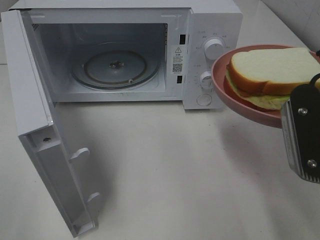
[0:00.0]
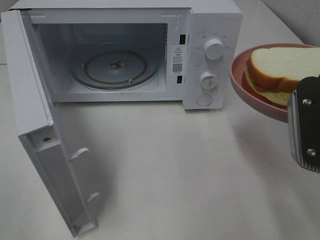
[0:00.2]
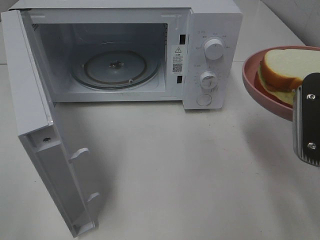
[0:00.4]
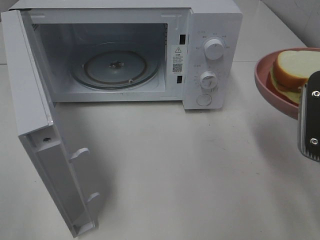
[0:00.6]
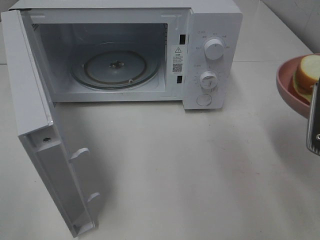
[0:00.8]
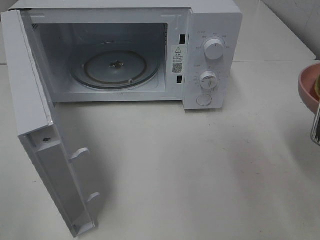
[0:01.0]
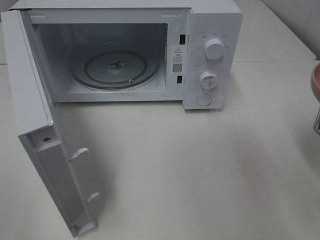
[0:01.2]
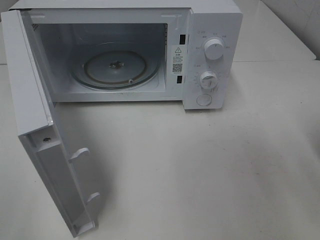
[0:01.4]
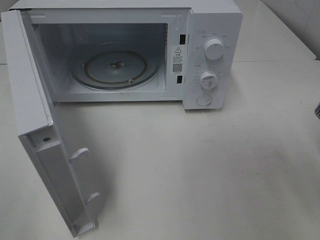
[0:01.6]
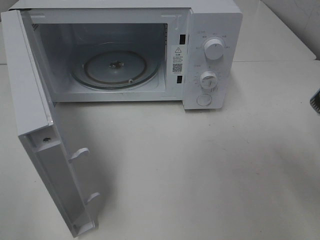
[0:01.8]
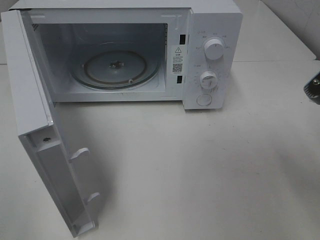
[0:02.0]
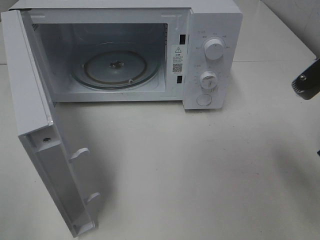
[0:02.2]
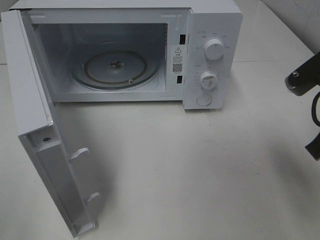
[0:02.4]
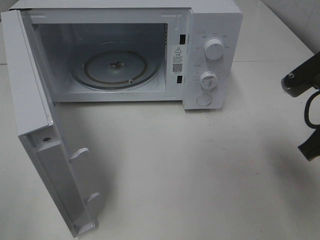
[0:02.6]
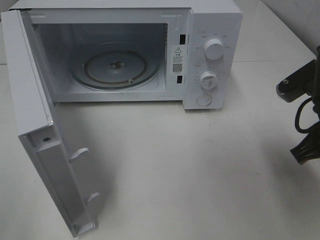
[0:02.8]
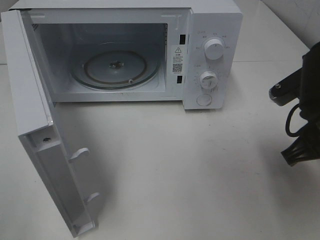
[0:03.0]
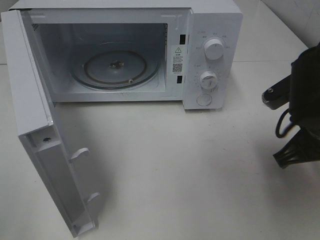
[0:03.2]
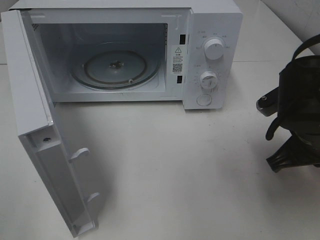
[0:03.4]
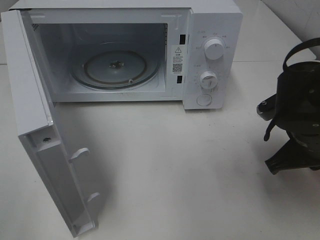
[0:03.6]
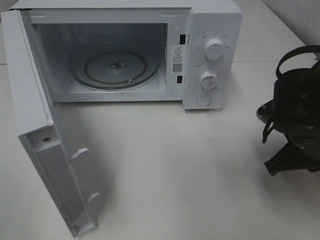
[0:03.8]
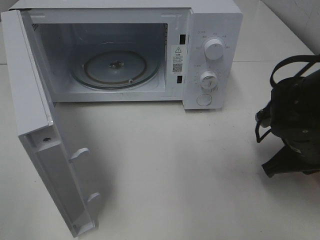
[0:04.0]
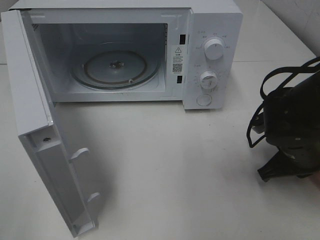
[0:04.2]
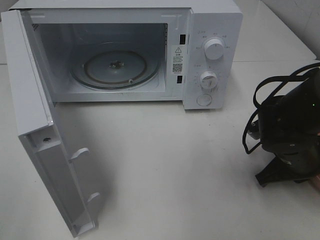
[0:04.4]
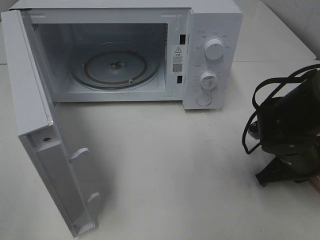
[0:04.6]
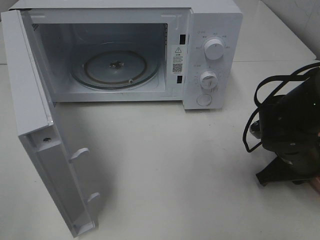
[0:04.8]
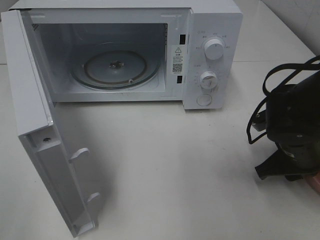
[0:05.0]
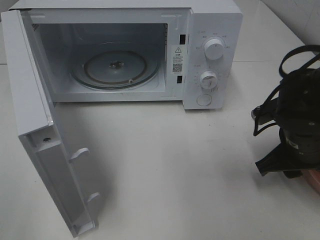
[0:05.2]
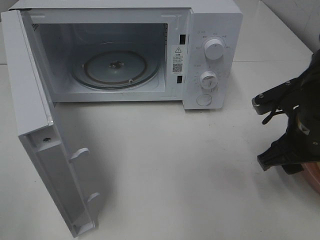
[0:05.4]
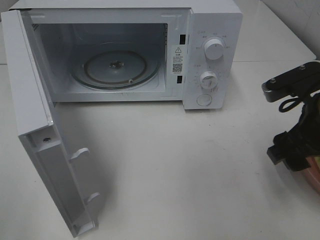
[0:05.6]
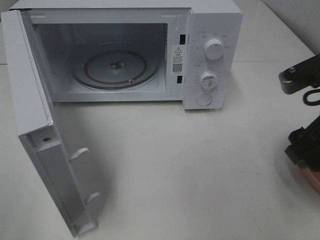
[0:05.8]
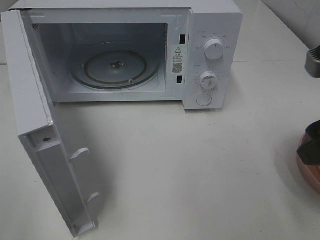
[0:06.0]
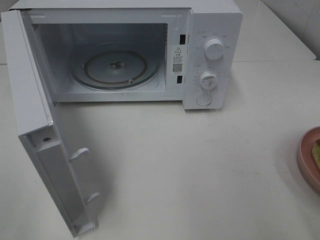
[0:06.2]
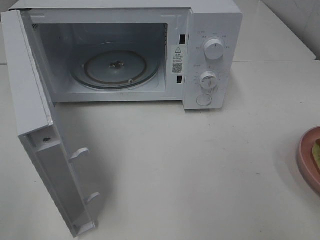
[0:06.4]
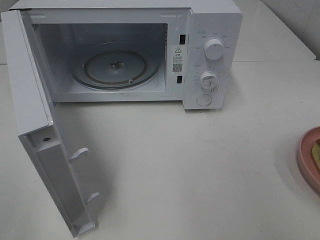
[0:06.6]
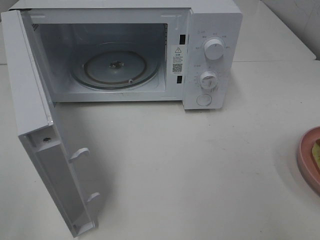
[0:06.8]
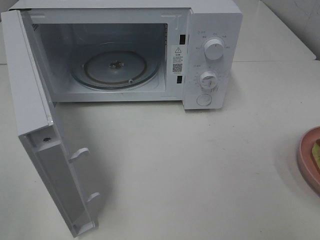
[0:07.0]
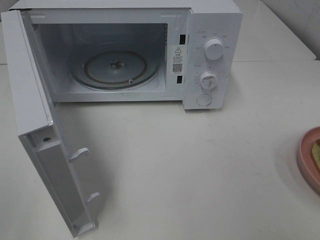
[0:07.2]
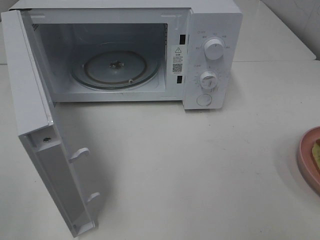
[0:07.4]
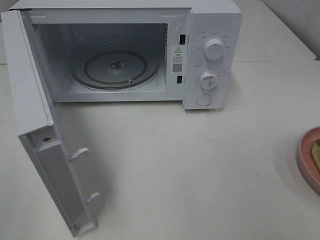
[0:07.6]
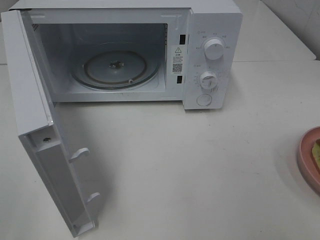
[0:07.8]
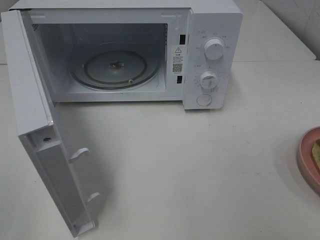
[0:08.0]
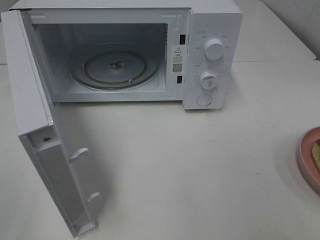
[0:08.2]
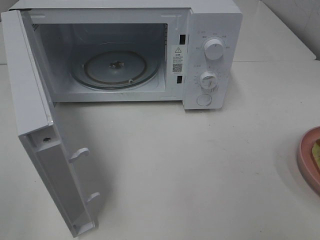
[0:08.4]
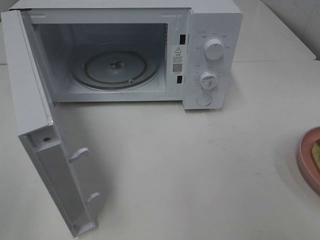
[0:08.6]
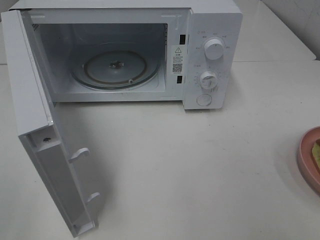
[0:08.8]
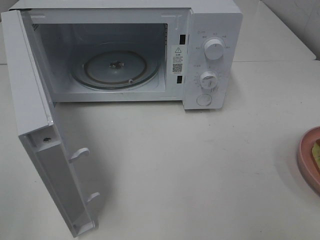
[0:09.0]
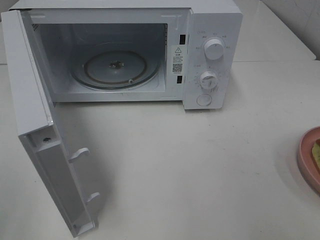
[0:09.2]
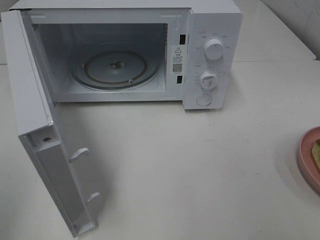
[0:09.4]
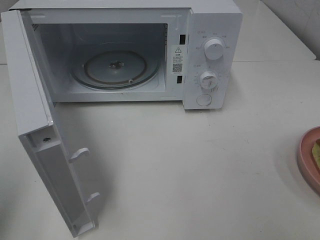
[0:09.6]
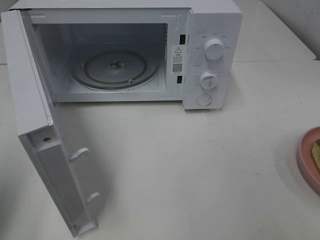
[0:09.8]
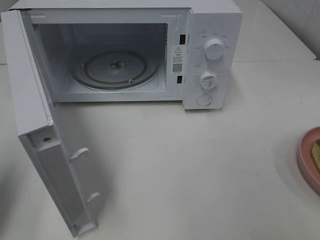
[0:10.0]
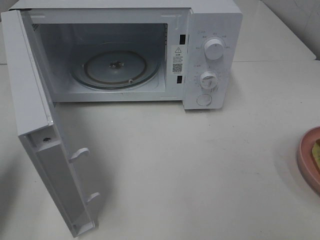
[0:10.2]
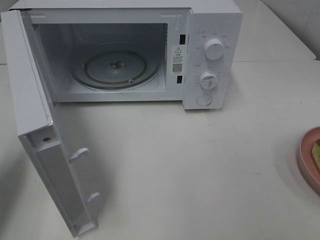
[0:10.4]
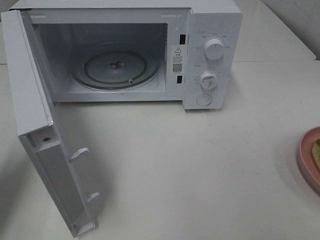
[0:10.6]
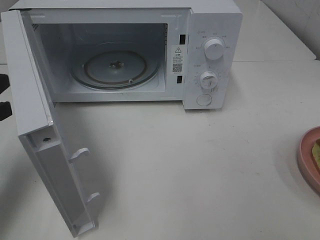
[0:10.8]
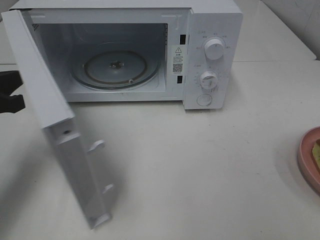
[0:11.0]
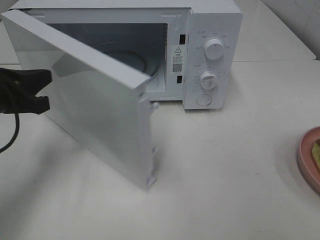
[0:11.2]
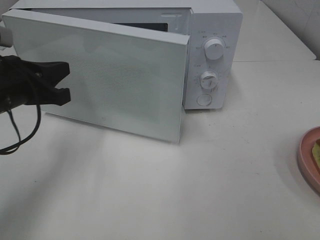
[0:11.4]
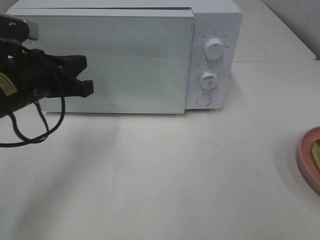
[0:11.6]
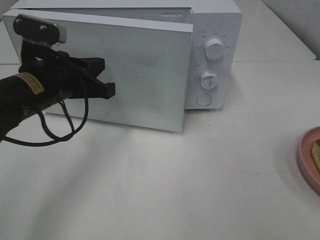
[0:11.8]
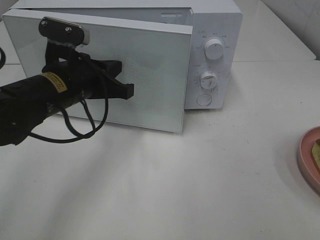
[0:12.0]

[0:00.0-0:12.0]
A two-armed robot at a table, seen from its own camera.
Task of the whole recording: Heat Sandwich.
Step, 0:00.0 to 0:05.8: Right hand: place the plate on the table.
0:01.6 to 0:03.0: The right gripper heads forward, covering approximately 5 cm.
0:03.0 to 0:04.4: The right gripper shifts some 10 cm downward.
0:04.4 to 0:06.0: The right gripper travels upward and backward by some 20 cm, and opens.
0:06.0 to 0:07.6: The right gripper moves backward and to the right, about 15 cm.
0:07.6 to 0:09.0: Both grippers stay about where they are.
0:09.0 to 0:10.4: The left gripper is displaced forward and downward by some 20 cm, and closes.
0:10.4 to 0:12.0: The left gripper moves to the right and forward, roughly 20 cm.

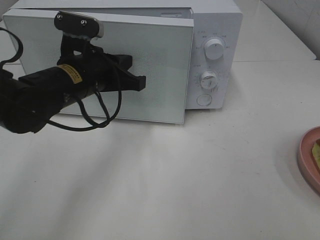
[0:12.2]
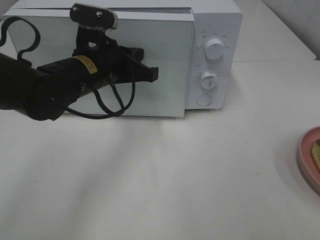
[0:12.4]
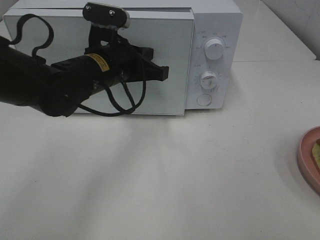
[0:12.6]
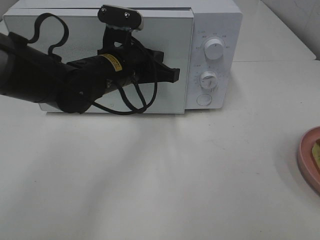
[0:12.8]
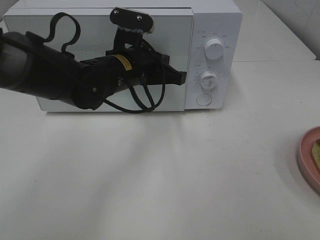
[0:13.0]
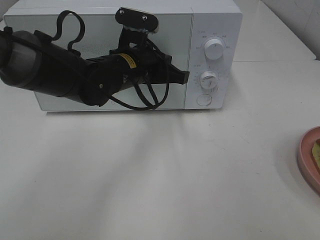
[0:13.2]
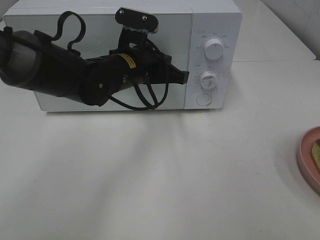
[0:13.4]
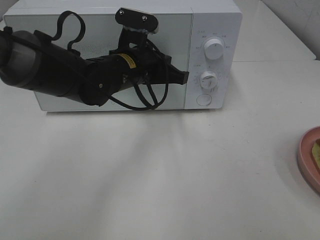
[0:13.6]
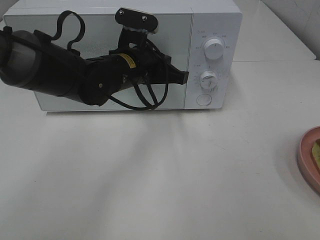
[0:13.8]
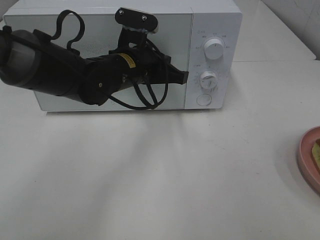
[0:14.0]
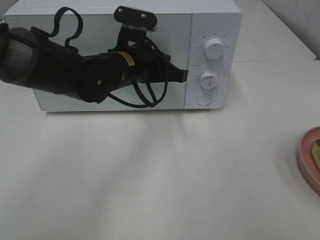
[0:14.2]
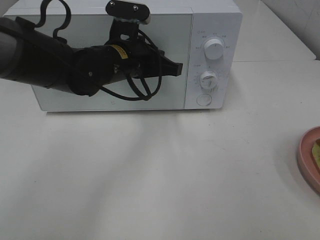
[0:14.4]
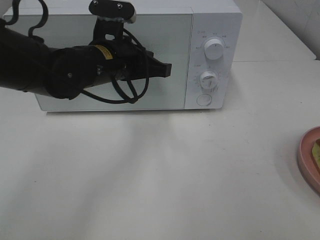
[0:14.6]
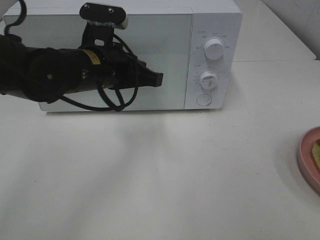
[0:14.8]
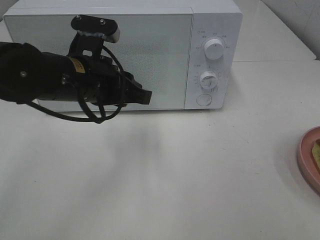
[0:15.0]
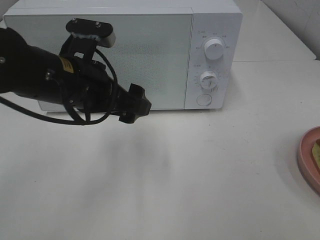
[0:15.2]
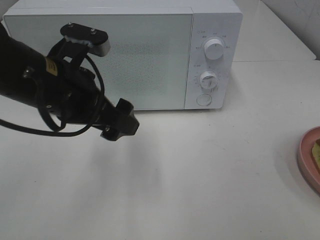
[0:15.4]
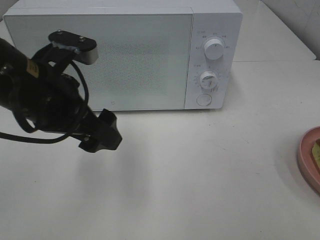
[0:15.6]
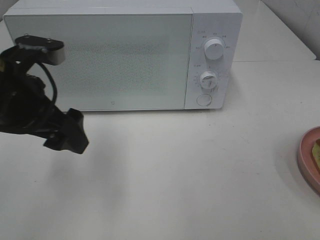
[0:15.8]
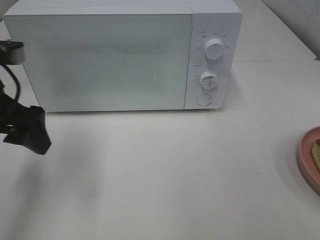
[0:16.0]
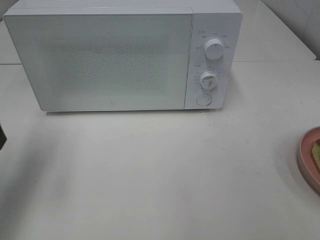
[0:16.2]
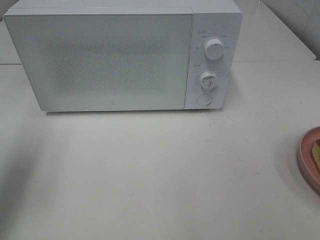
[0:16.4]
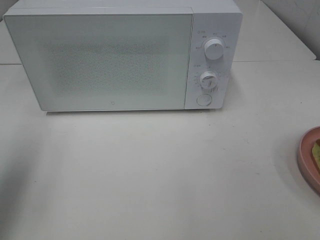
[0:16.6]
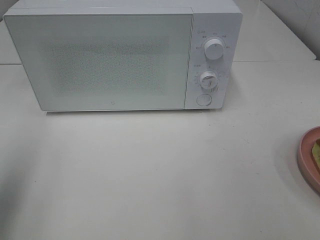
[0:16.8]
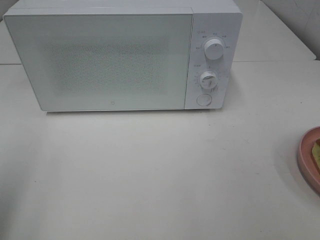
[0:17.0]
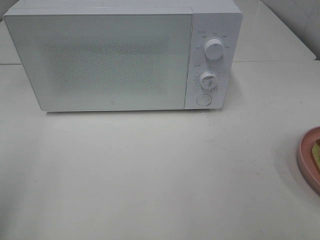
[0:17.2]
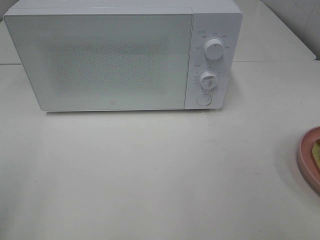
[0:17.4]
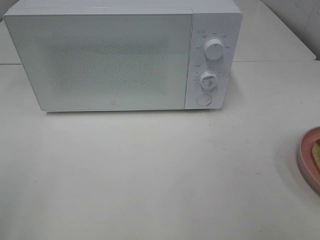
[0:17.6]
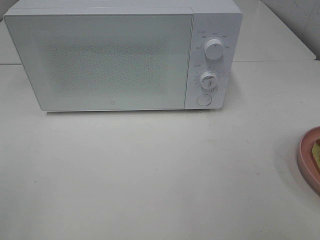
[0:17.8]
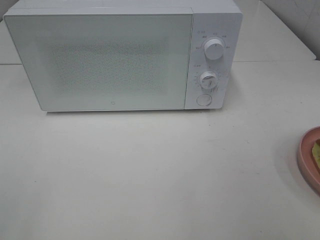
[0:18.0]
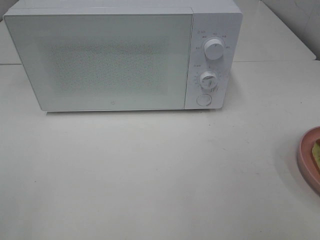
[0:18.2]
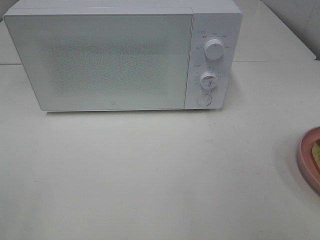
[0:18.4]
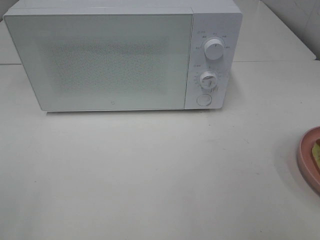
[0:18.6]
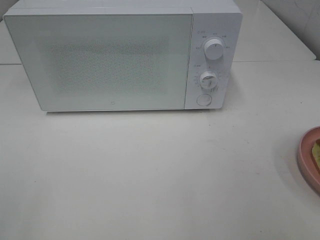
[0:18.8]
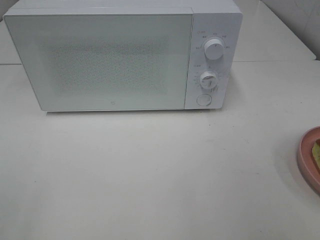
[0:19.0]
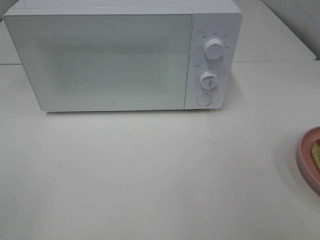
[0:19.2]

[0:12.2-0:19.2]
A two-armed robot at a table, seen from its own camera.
Task of the whole recording: Heat Sandwich.
Step, 0:12.2 to 0:14.6: Left hand: close the microwave door.
0:12.2 to 0:13.6: The left gripper moves to the right, roughly 5 cm.
0:13.6 to 0:15.0: The left gripper goes some 10 cm backward and to the left, and opens.
0:15.0 to 0:16.4: The left gripper shifts roughly 20 cm to the left, and opens.
0:16.4 to 0:17.8: The left gripper is displaced backward by approximately 20 cm.

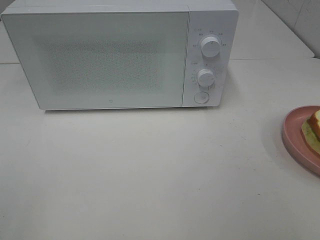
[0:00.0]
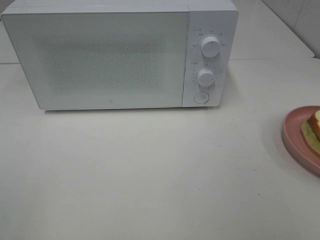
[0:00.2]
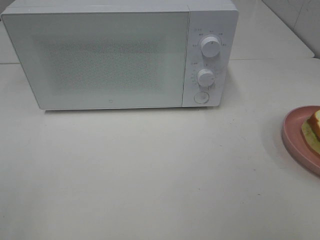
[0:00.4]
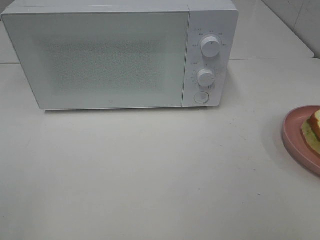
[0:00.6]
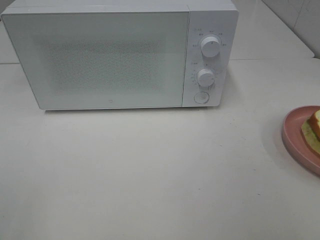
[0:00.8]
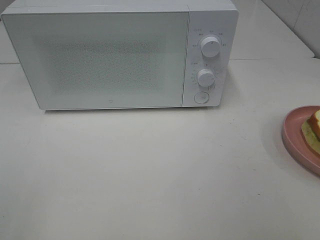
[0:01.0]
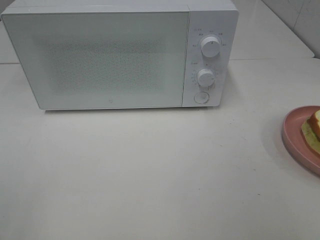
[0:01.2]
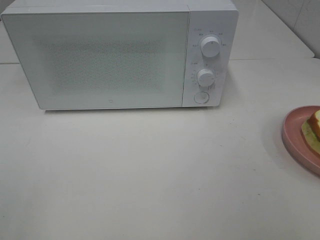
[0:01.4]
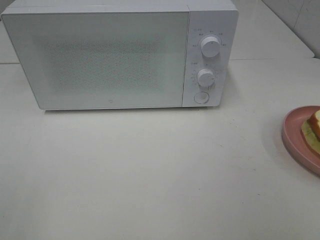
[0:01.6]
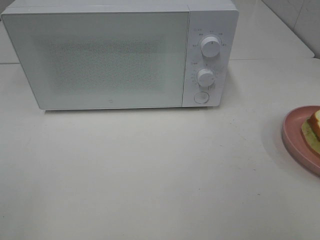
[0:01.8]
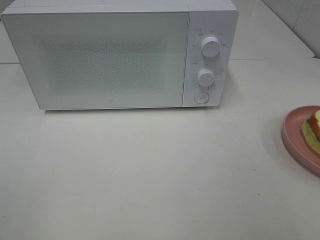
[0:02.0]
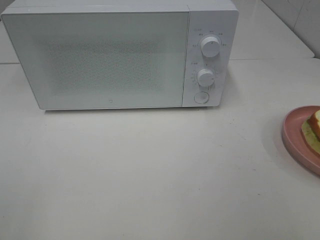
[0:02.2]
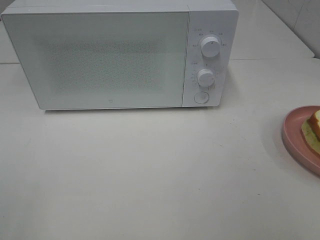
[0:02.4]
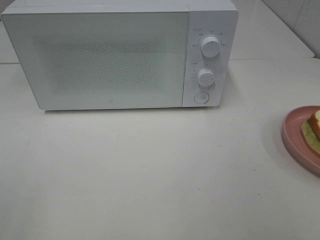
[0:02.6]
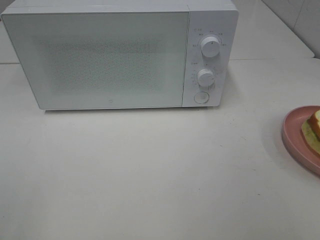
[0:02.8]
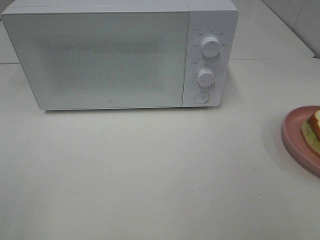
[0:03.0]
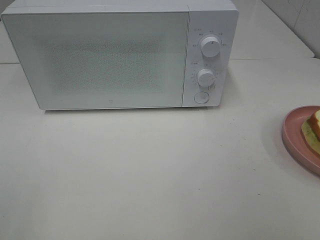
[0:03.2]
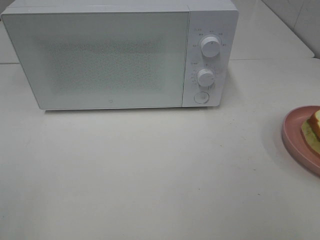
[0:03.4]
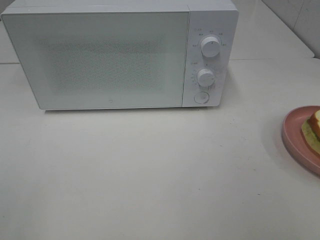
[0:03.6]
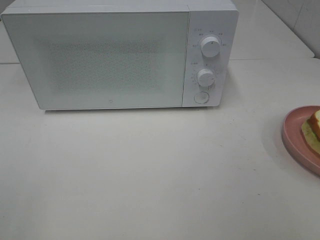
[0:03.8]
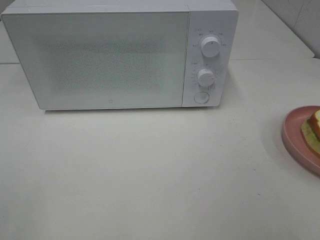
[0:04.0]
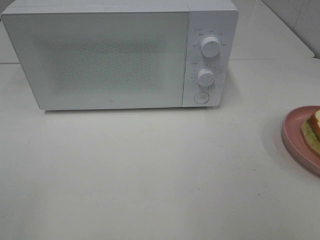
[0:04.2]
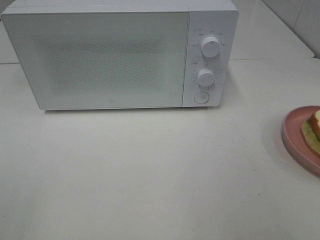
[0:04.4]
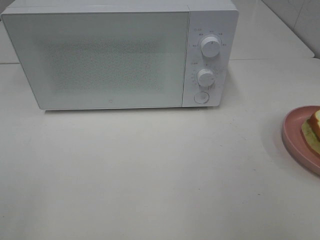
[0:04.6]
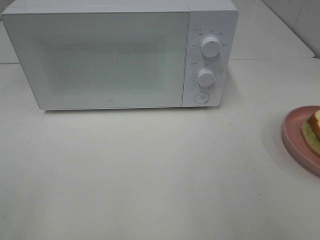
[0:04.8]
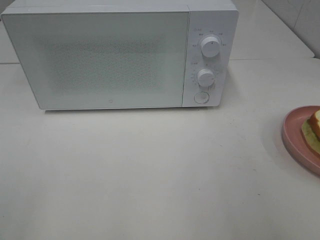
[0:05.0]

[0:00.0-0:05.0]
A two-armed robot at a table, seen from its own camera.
Task of the whole recording: Heat Sandwich.
0:00.0 to 0:03.4: The two grippers keep their place.
